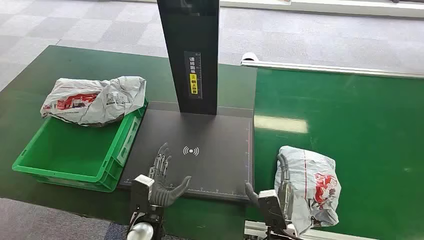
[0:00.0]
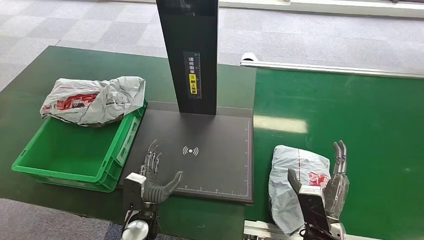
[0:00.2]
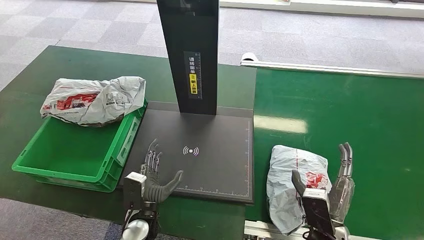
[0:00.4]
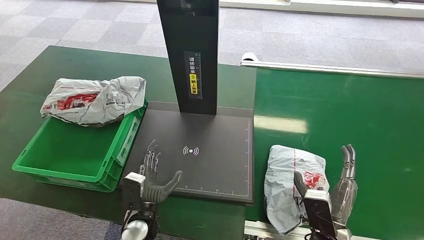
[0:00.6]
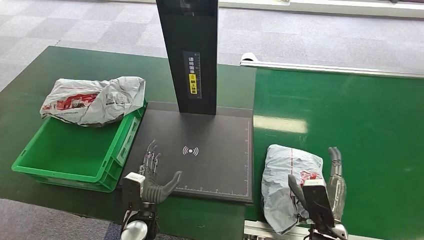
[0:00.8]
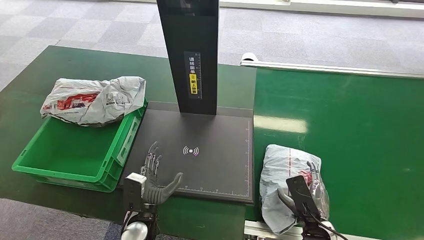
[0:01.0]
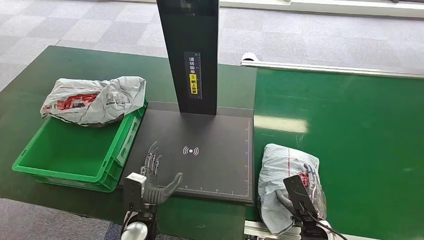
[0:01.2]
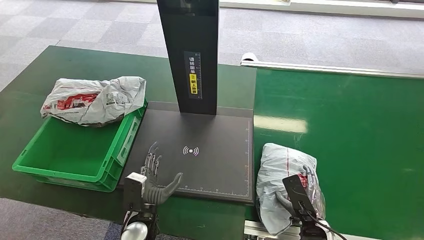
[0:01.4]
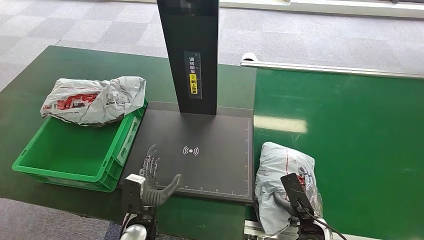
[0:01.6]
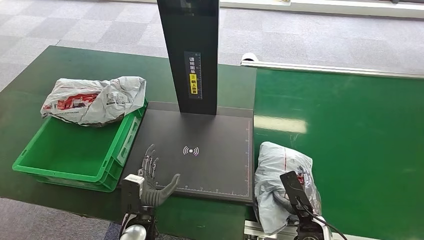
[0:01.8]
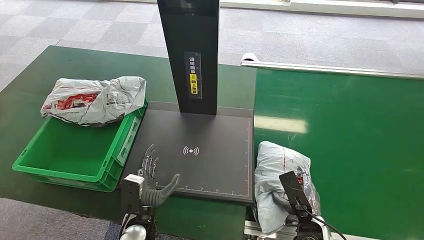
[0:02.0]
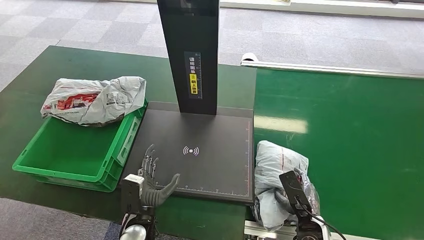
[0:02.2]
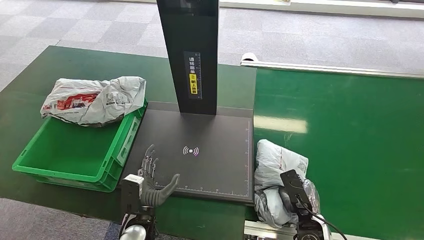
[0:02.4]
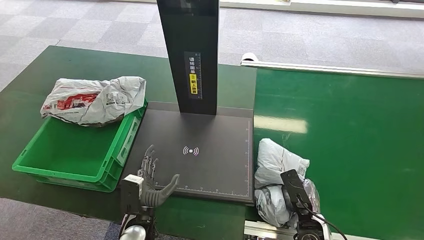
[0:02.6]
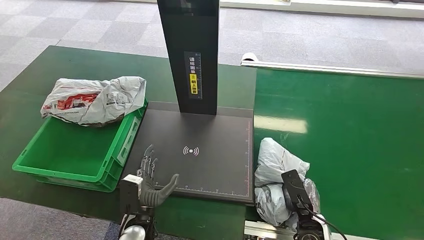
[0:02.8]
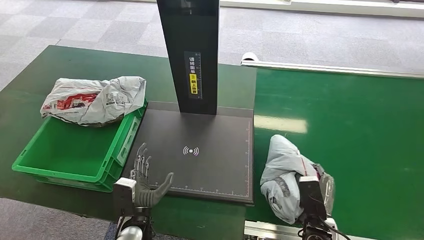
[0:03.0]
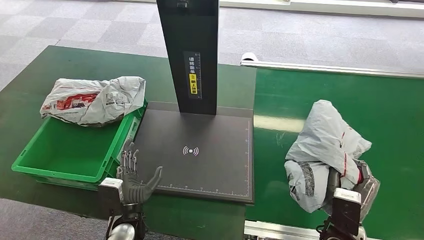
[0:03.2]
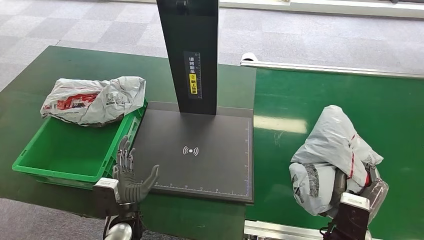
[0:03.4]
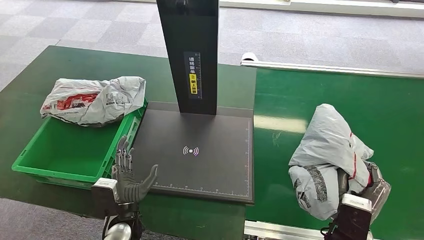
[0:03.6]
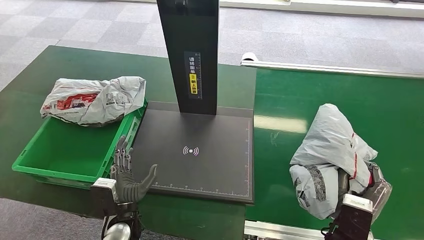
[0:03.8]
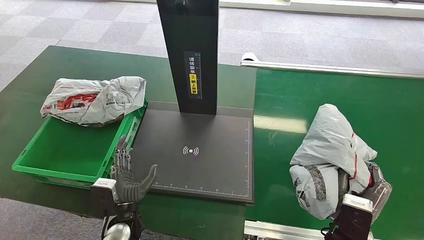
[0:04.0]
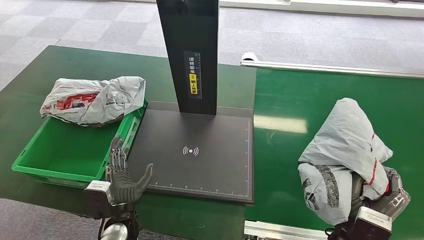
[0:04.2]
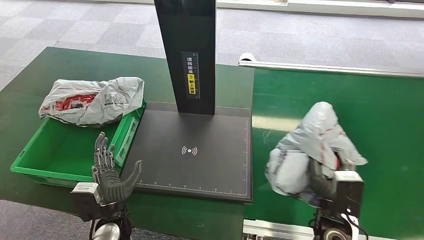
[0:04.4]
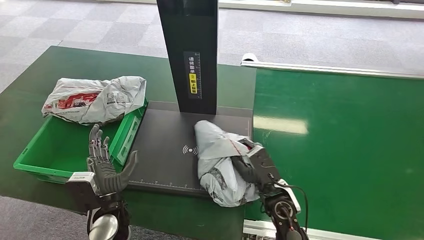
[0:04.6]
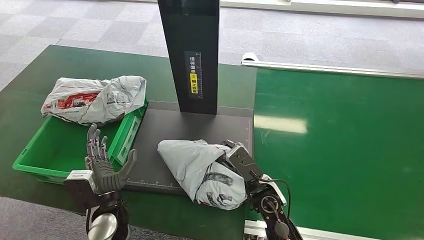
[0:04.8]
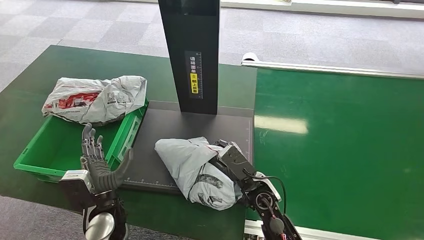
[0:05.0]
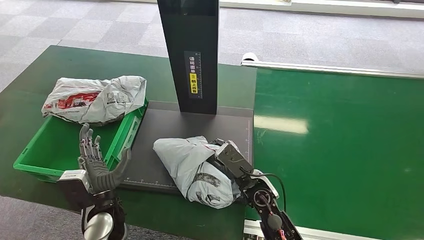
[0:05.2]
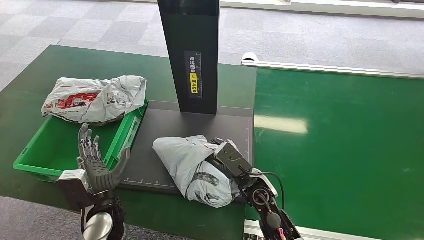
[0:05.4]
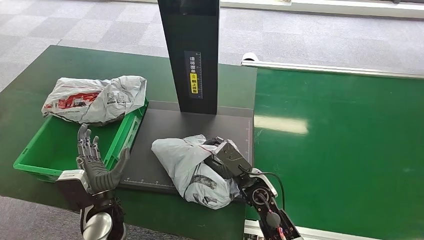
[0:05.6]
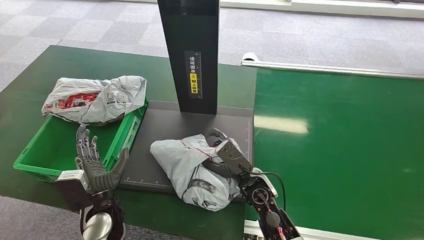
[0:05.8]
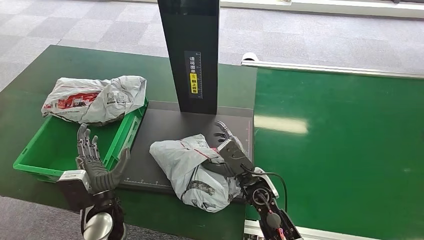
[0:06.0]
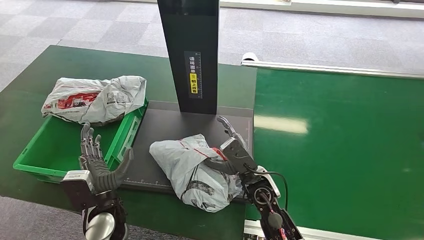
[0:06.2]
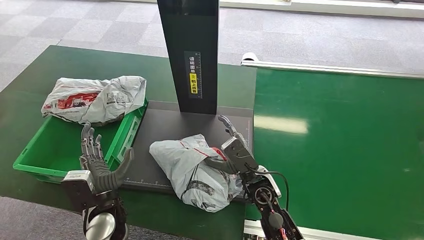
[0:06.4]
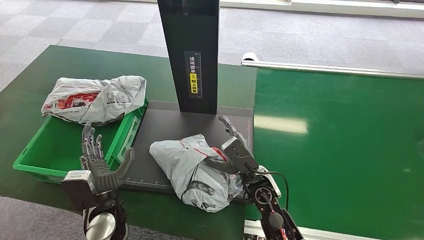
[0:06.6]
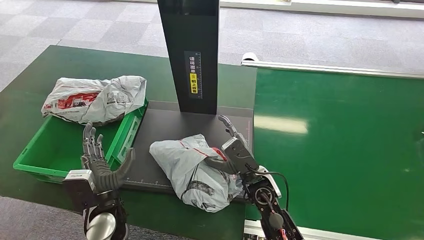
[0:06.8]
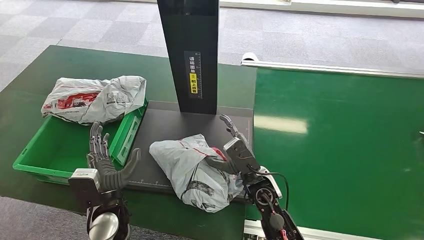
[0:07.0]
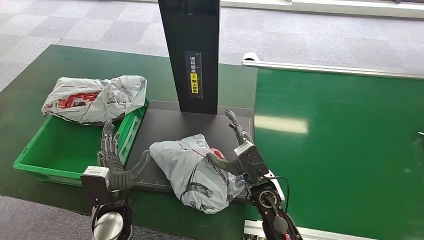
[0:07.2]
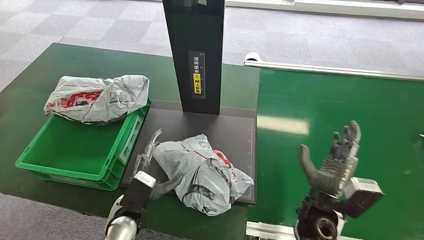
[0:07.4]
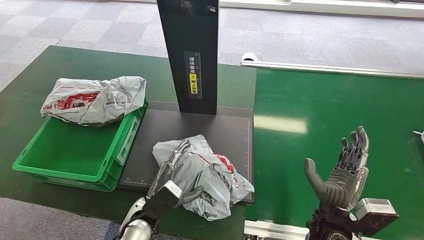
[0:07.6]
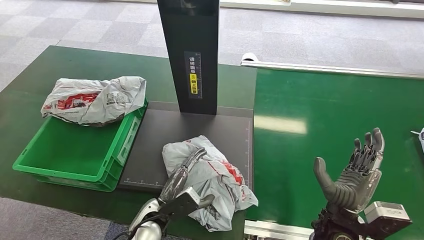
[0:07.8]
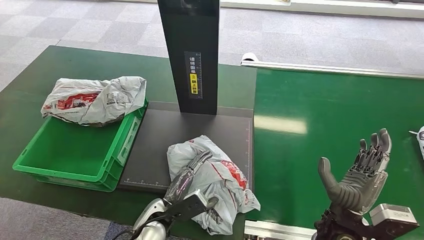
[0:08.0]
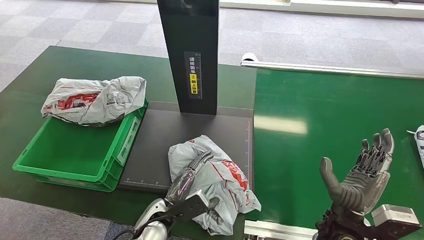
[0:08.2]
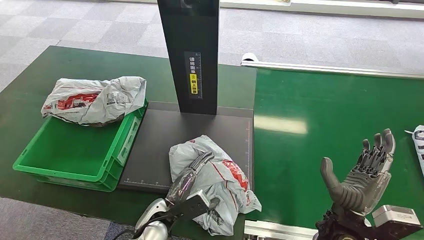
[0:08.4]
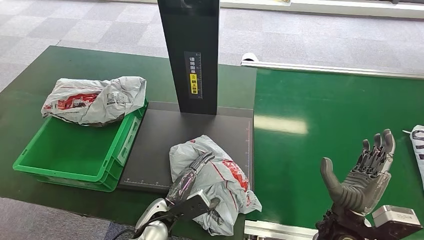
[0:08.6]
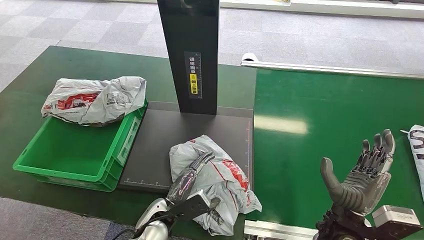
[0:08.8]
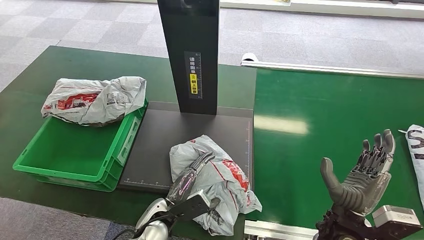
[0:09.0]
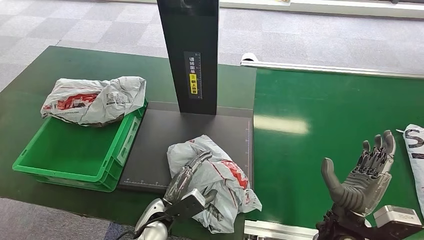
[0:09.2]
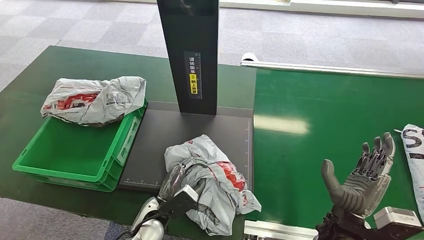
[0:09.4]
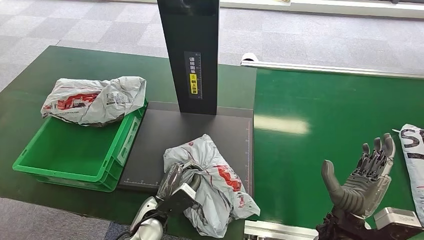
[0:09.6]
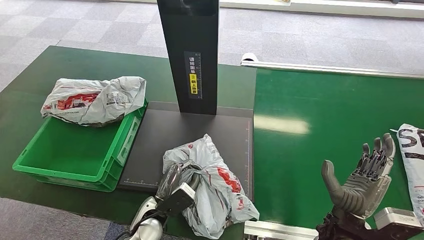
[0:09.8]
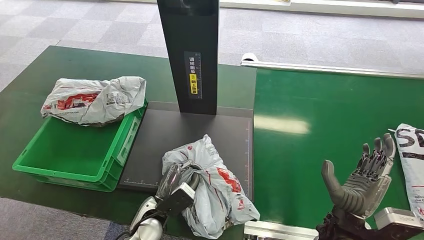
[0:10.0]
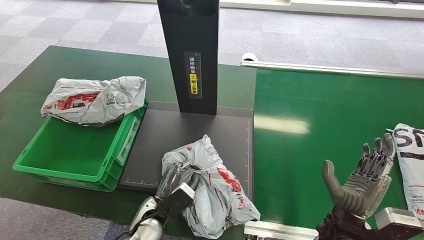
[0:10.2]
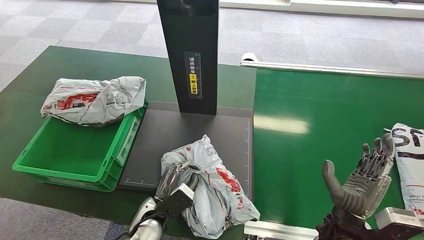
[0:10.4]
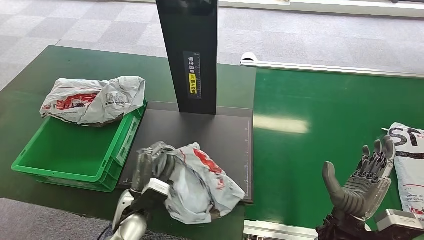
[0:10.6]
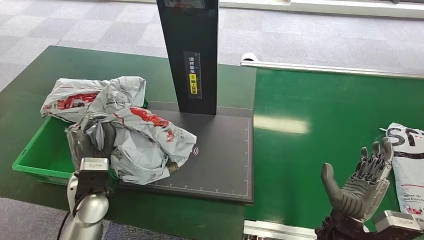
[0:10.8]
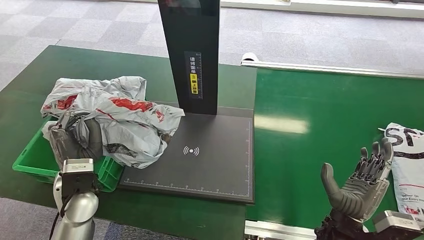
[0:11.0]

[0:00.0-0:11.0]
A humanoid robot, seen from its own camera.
Step, 0:00.0 to 0:03.4: Pick up the package from the conveyor belt.
Step, 0:03.8 to 0:08.2: Place the package onto the inbound machine.
Step, 0:08.4 to 0:11.0: Pick up the package from the inbound machine.
0:01.6 to 0:03.2: The right hand goes approximately 5 cm upward.
0:03.2 to 0:04.8: The left hand changes place by some 5 cm; the right hand is displaced to the left and forward by roughly 15 cm.
0:04.8 to 0:06.2: There are only small adjustments of the hands.
0:06.2 to 0:07.8: The left hand goes approximately 10 cm to the right. Meanwhile the right hand travels to the right and backward by some 15 cm.
0:07.8 to 0:09.4: The hands move only a little.
0:09.4 to 0:11.0: The left hand goes roughly 20 cm to the left and upward.

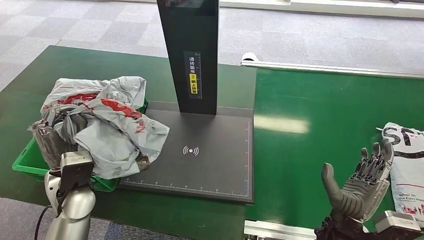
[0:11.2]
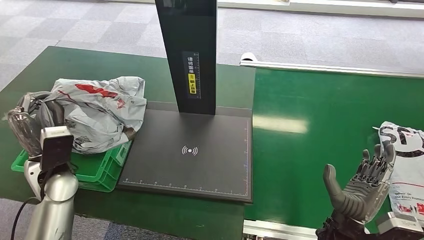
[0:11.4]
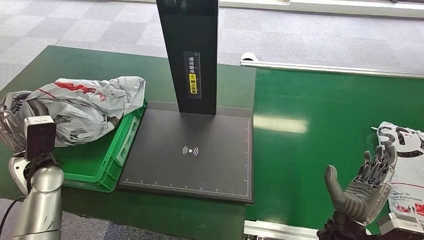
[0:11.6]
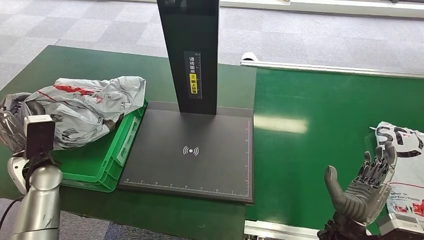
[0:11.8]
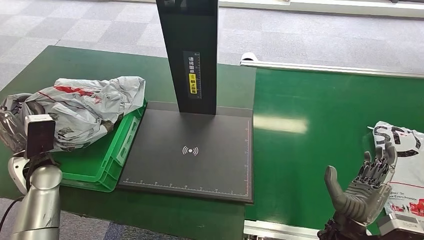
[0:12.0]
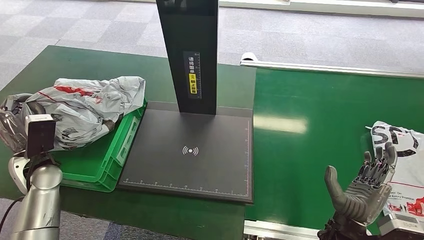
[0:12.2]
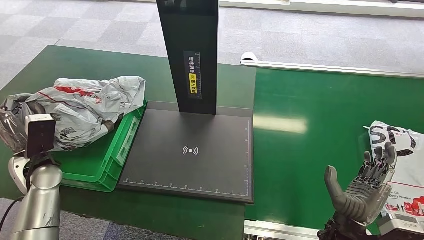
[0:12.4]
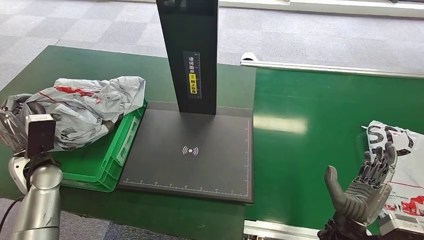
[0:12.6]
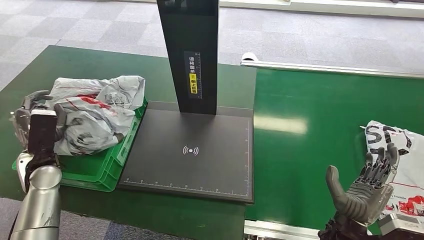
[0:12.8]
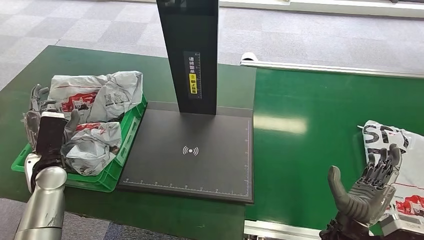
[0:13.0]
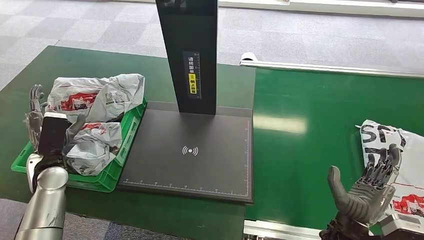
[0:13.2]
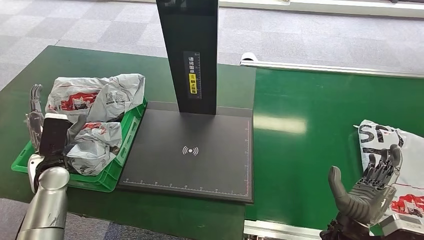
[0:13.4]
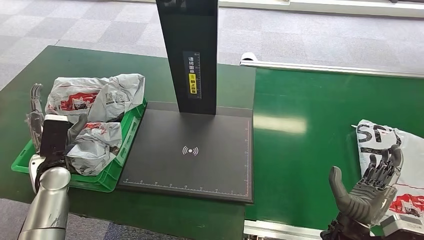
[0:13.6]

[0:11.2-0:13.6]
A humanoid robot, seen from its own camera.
Step, 0:11.2 to 0:13.6: Place the package into the parcel locker.
0:11.2 to 0:12.4: The left hand heads to the left, covering about 10 cm.
0:12.4 to 0:13.6: The hands stay close to where they were, moving slightly.

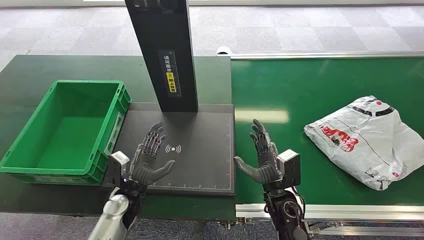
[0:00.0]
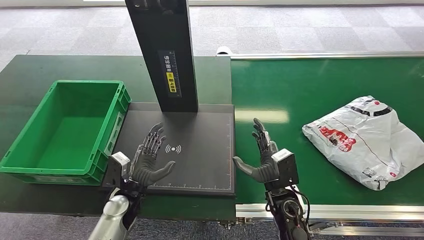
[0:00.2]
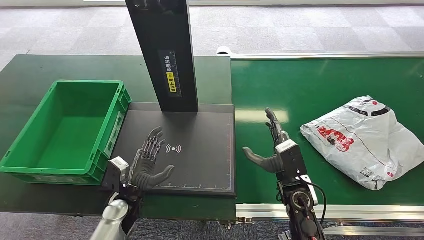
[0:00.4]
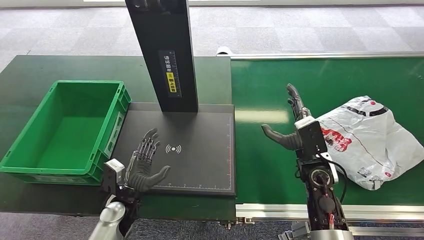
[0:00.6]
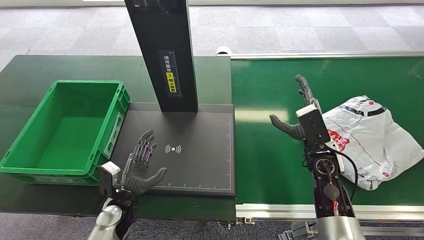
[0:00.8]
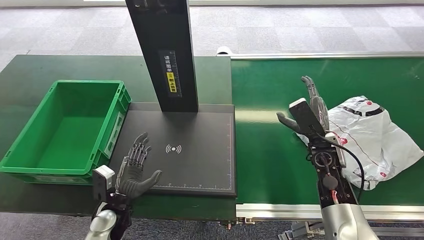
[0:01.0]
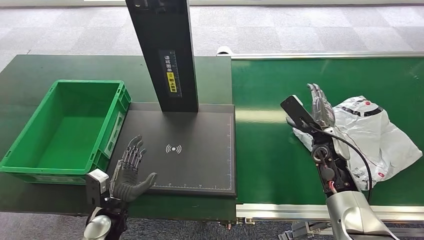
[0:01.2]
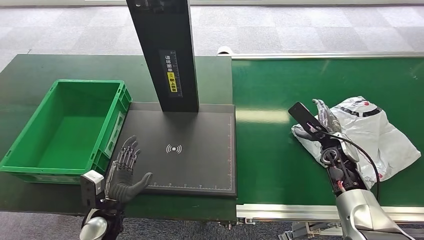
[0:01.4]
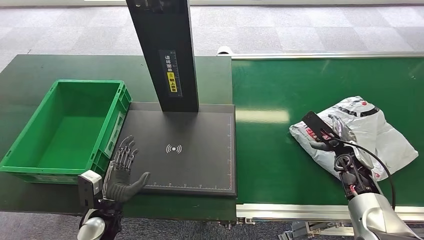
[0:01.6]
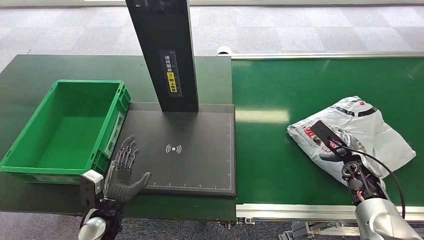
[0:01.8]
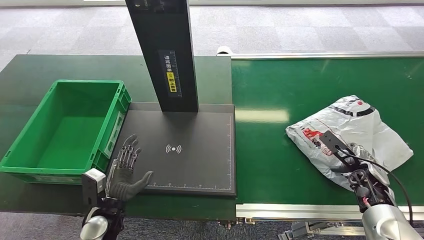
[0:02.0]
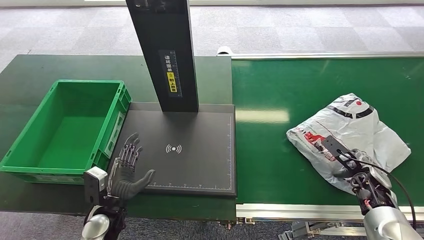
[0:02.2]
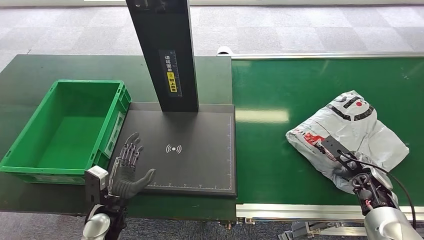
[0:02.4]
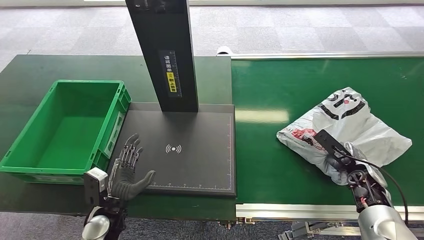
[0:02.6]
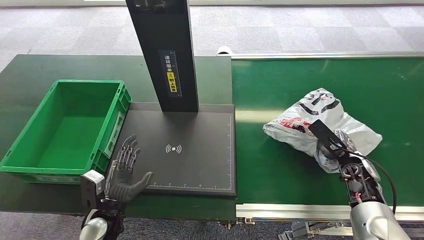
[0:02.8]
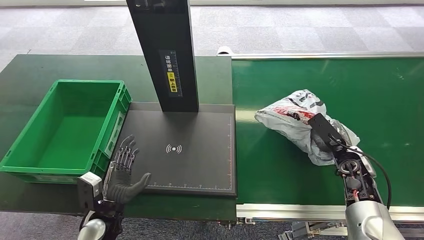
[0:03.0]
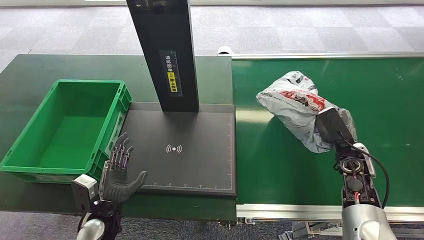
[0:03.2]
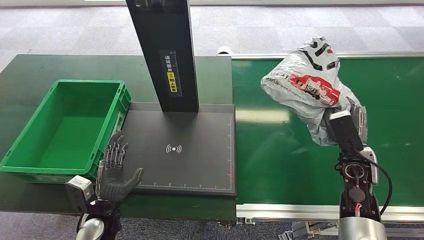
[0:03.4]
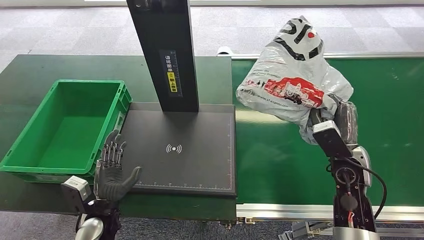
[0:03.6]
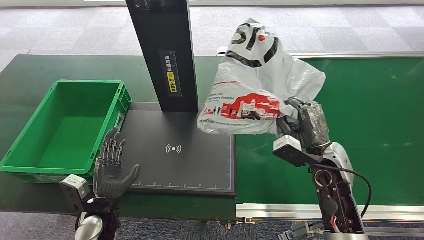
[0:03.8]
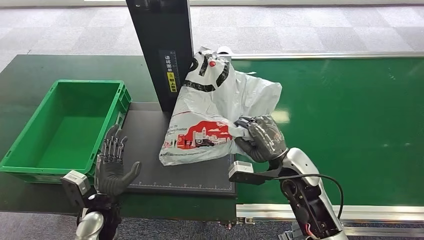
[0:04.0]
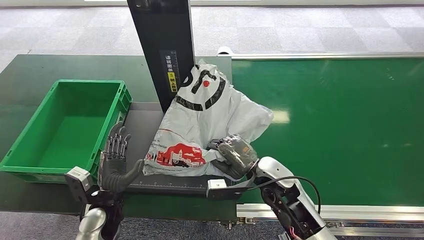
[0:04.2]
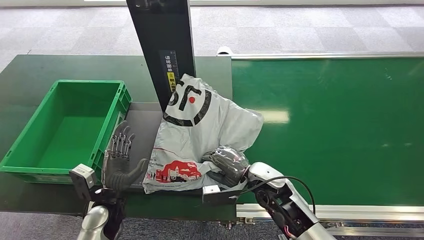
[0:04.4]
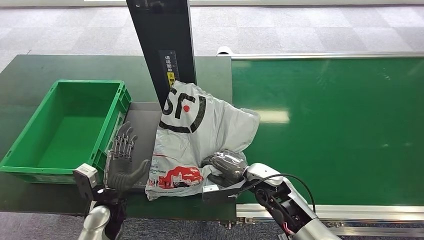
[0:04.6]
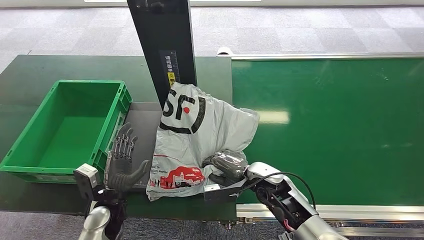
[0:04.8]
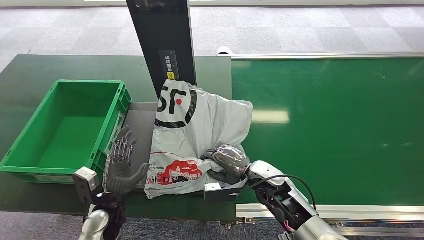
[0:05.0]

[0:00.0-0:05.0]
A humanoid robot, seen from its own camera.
Step, 0:00.0 to 0:03.6: Pick up the package from the conveyor belt.
0:01.6 to 0:03.4: The right hand moves approximately 5 cm to the right and comes back.
